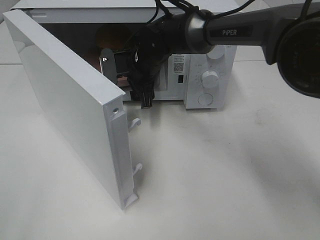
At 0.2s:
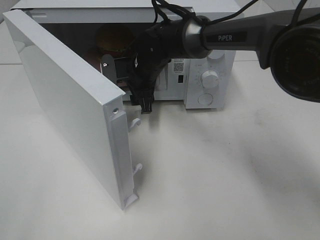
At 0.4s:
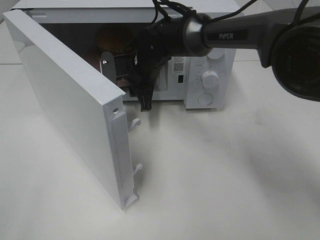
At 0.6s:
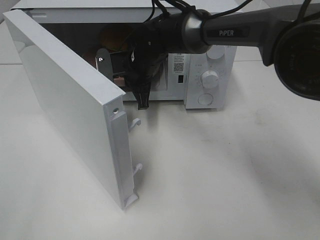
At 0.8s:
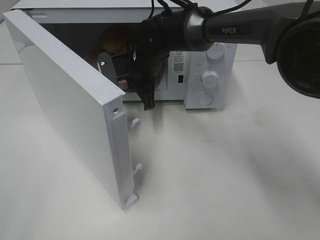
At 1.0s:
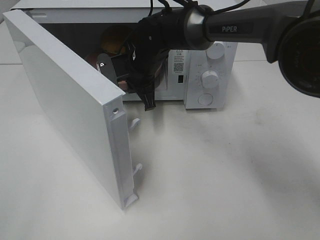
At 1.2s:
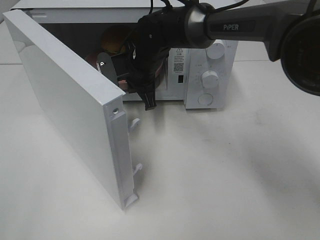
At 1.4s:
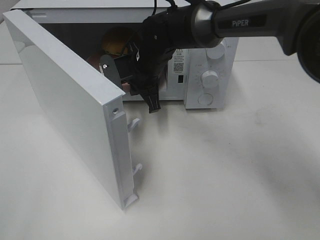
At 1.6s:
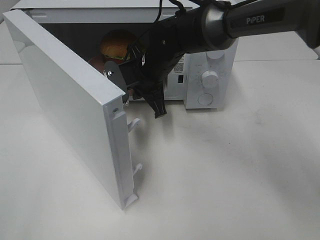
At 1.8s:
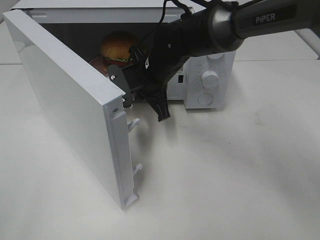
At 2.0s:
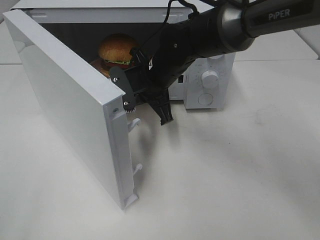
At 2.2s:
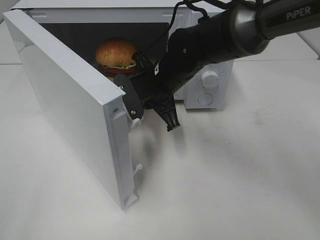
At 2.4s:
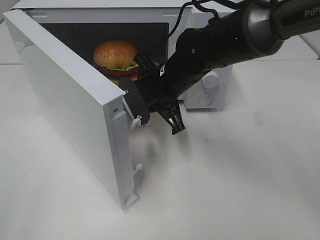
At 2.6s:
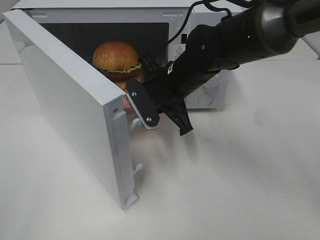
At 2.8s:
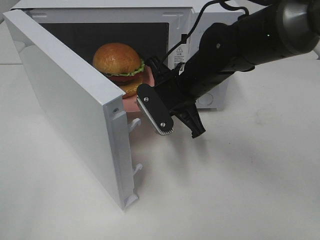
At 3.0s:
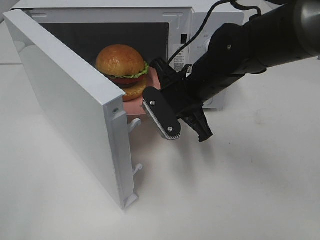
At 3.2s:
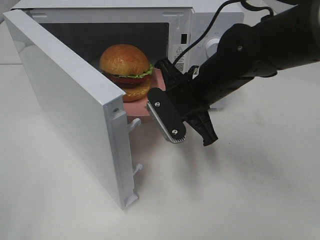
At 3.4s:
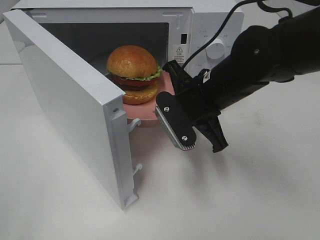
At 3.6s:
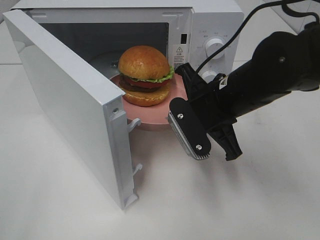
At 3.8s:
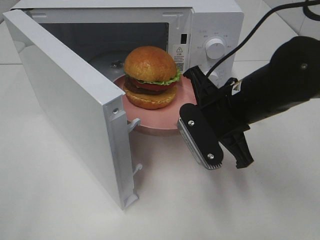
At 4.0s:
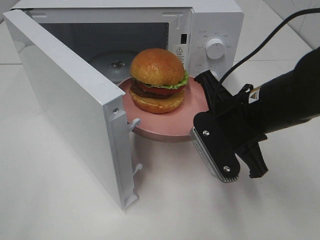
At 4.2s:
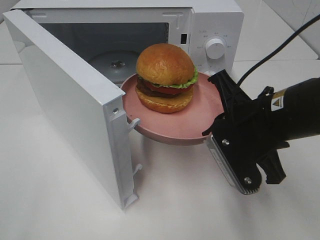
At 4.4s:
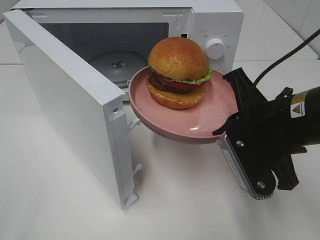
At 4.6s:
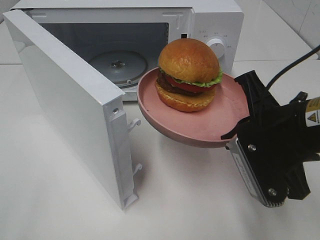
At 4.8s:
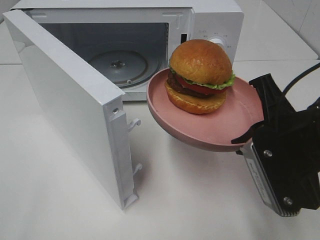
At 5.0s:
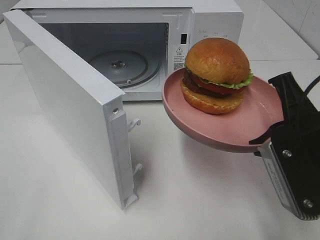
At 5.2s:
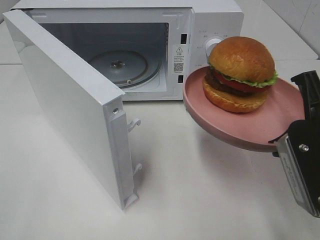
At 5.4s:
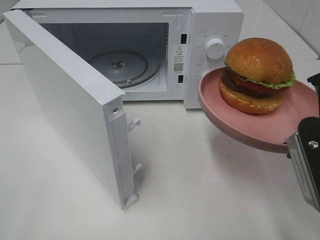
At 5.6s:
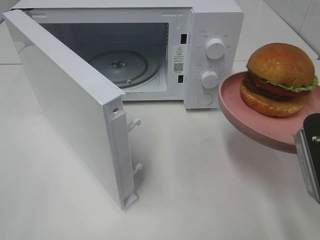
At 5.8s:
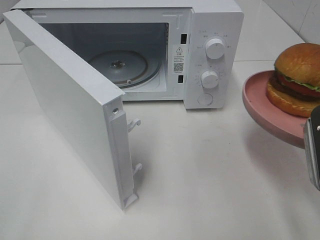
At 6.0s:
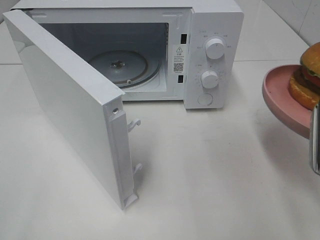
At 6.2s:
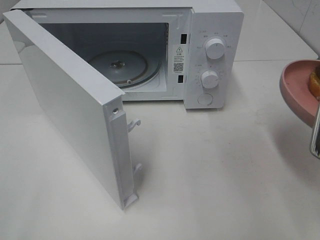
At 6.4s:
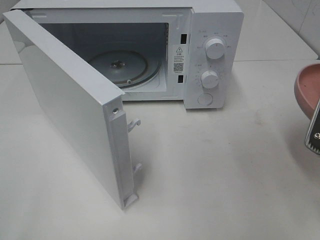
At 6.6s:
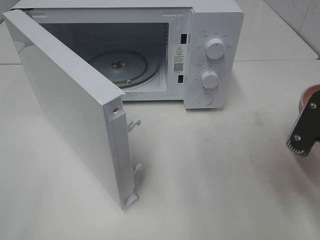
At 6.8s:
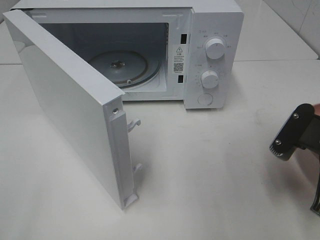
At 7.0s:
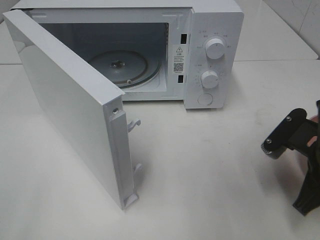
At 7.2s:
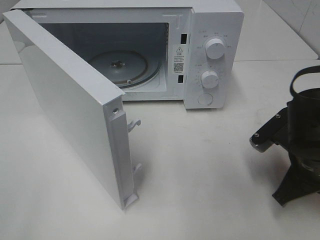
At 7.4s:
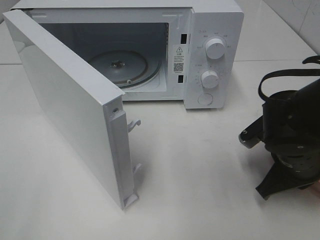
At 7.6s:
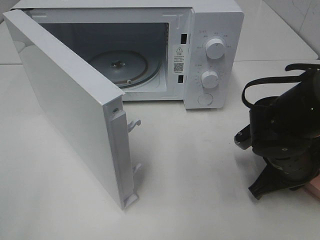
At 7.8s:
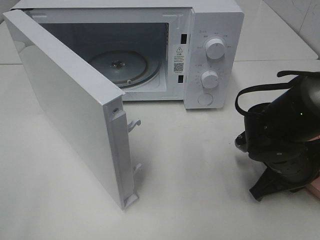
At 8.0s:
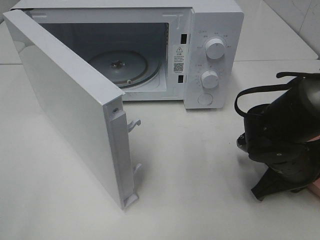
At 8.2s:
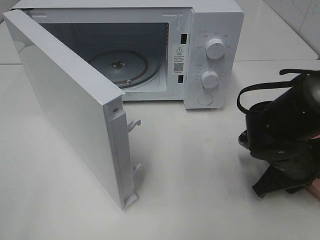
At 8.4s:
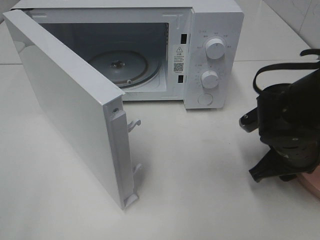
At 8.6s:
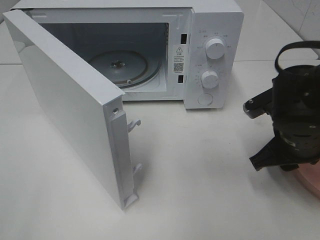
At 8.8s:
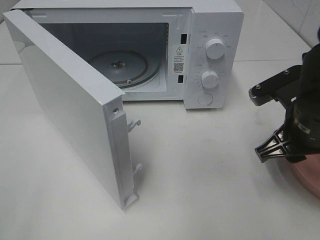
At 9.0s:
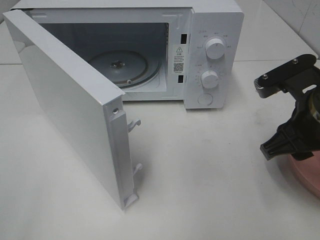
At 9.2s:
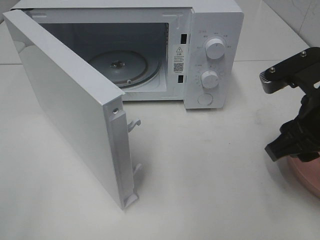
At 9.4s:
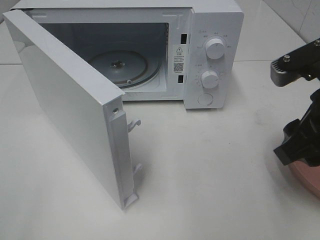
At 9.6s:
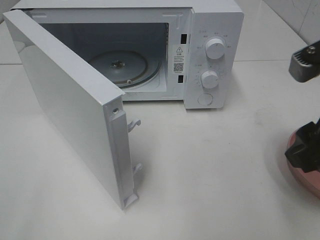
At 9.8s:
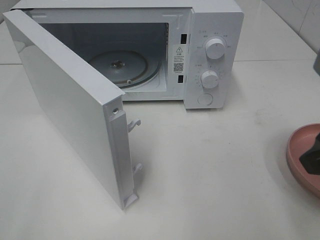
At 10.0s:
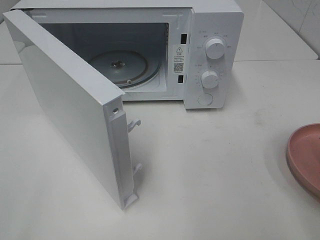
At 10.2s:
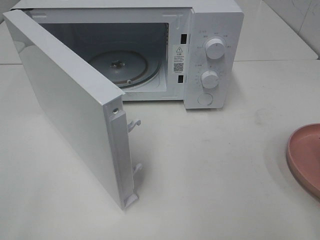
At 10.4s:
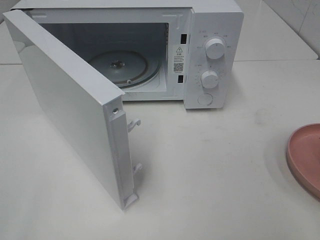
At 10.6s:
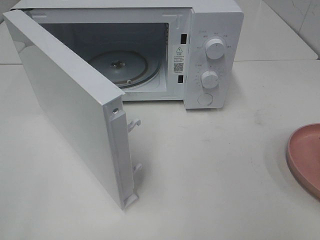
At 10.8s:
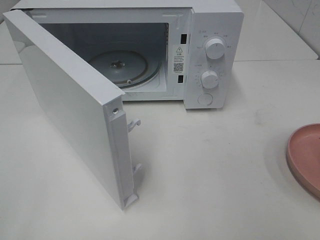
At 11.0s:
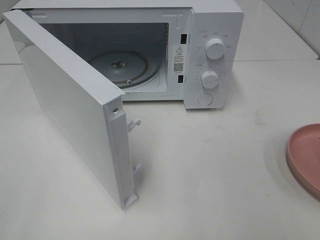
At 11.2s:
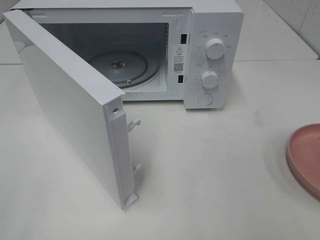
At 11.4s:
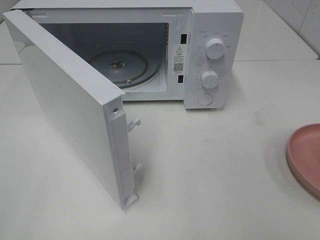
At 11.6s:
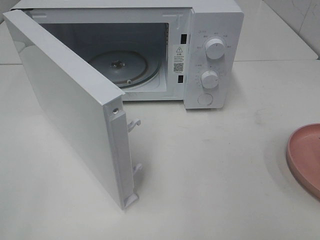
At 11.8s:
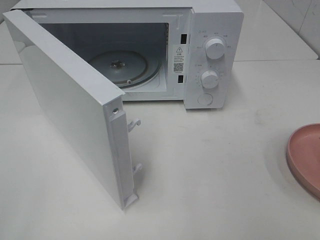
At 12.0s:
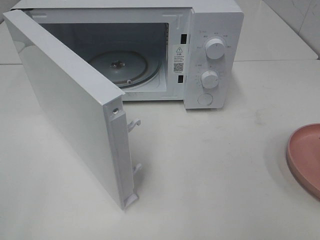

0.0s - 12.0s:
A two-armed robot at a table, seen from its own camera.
Task of the whole recording: Heat the burger.
Step, 0.8s - 8.2s: Right hand: place the plate on the table.
0.0s - 1.6s: The right gripper closes.
1.6s - 3.0s: The right gripper is displaced backward and to the right by about 10 cm.
3.0s - 4.4s: The right gripper is displaced backward and to the right by roughly 15 cm.
4.4s - 6.0s: The right gripper shifts approximately 10 cm to the right and backward.
6.0s - 7.6s: The right gripper heads downward and forward, covering some 15 cm.
7.6s - 9.0s: The right gripper heads upward, covering roughly 10 cm, and opens its fingers.
9.0s - 10.4s: The right gripper shifts approximately 15 cm backward, upward and to the right.

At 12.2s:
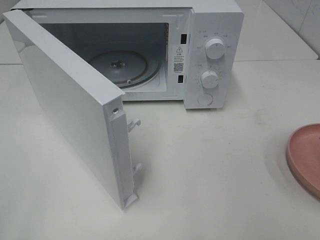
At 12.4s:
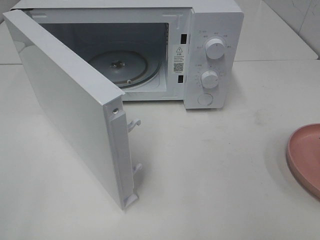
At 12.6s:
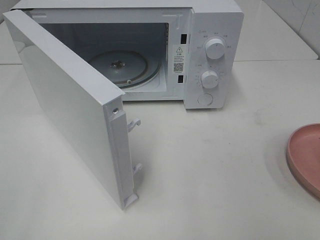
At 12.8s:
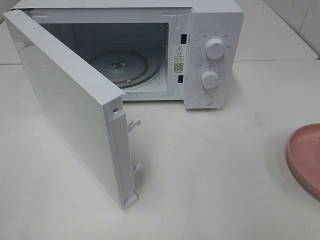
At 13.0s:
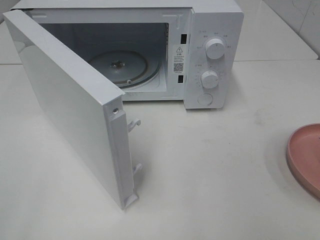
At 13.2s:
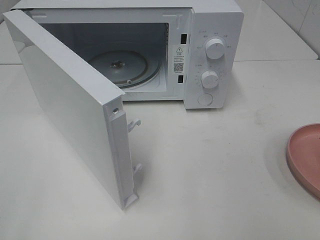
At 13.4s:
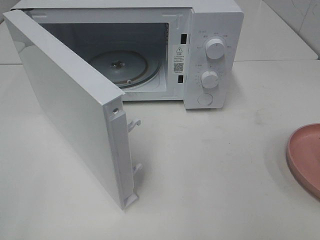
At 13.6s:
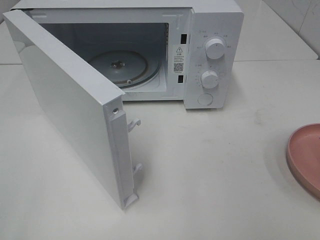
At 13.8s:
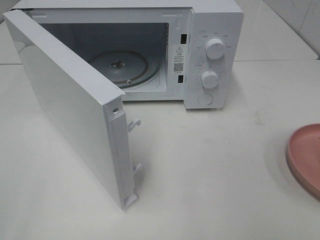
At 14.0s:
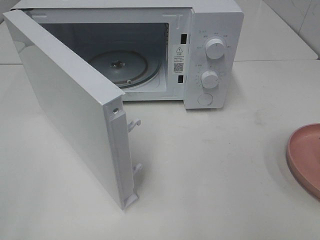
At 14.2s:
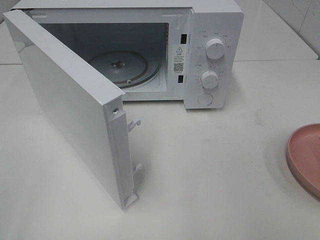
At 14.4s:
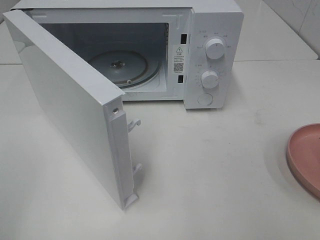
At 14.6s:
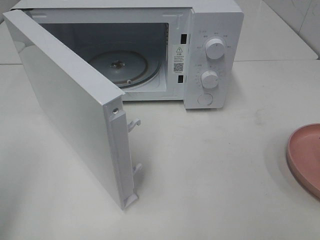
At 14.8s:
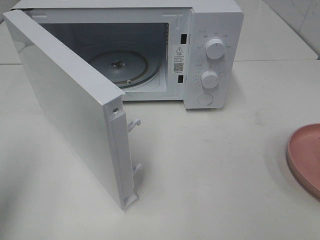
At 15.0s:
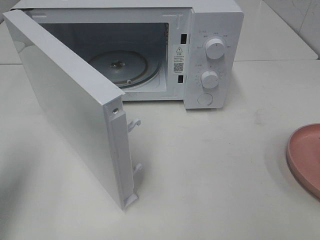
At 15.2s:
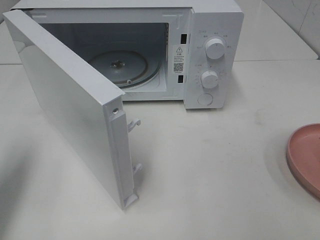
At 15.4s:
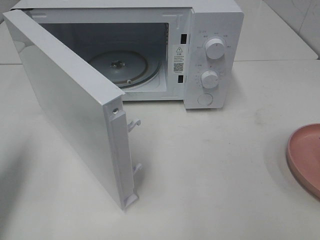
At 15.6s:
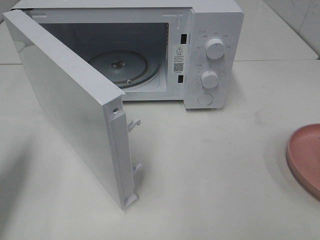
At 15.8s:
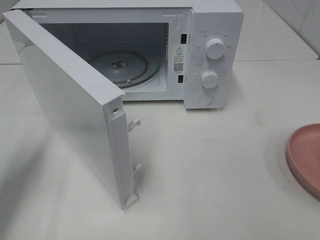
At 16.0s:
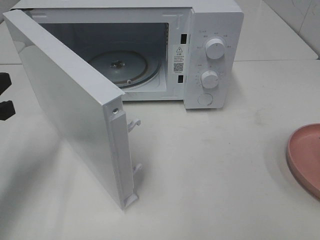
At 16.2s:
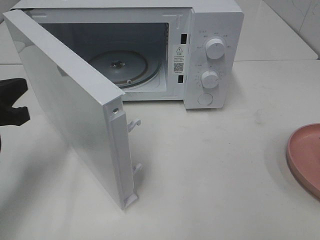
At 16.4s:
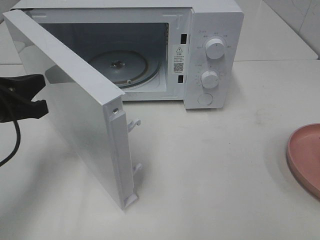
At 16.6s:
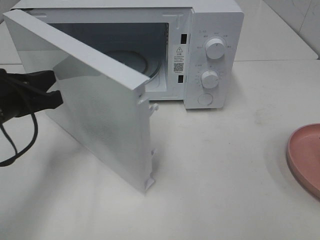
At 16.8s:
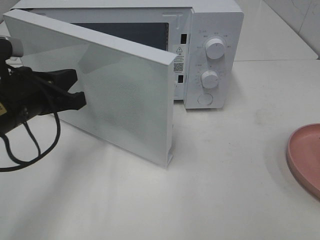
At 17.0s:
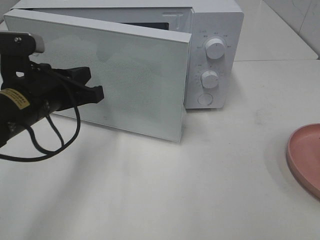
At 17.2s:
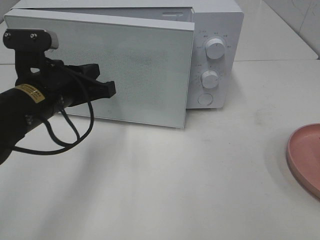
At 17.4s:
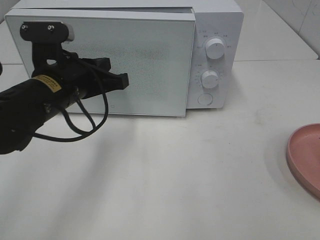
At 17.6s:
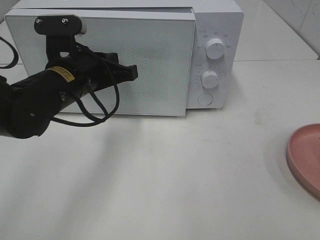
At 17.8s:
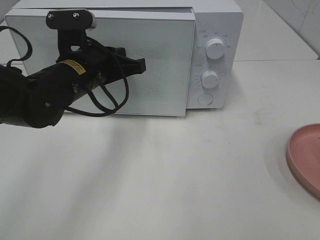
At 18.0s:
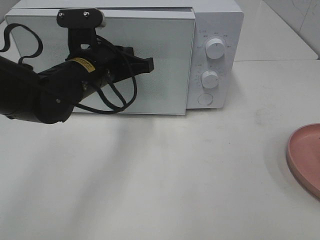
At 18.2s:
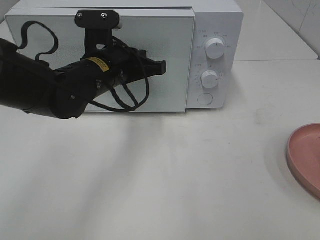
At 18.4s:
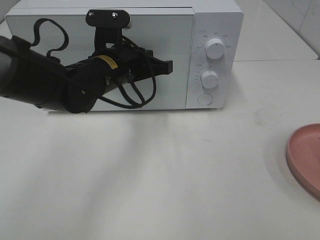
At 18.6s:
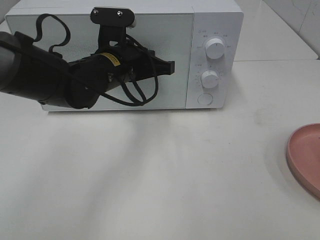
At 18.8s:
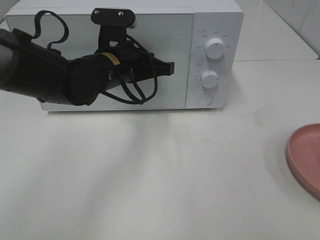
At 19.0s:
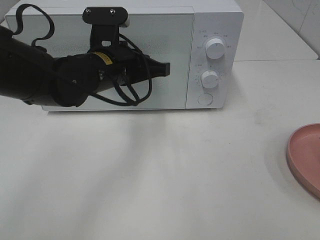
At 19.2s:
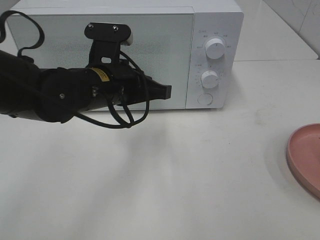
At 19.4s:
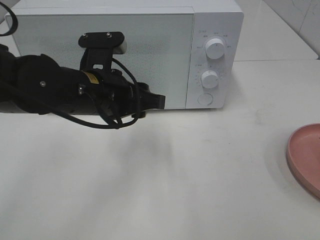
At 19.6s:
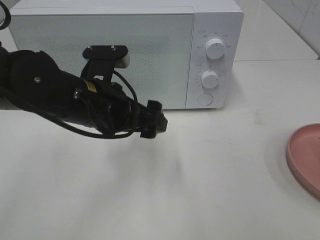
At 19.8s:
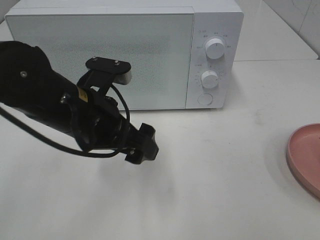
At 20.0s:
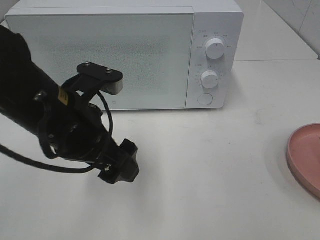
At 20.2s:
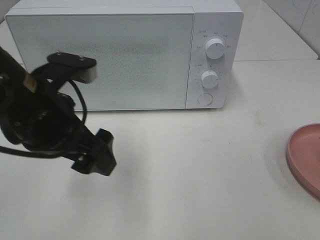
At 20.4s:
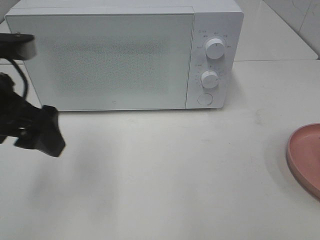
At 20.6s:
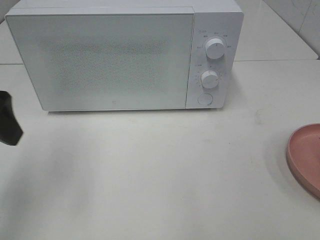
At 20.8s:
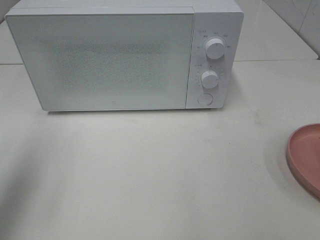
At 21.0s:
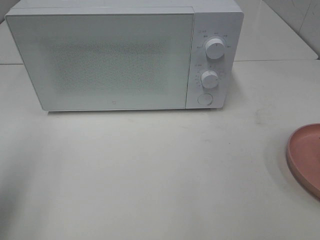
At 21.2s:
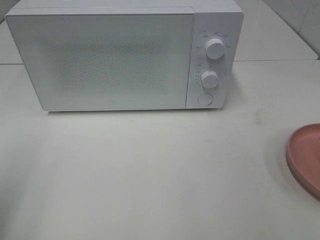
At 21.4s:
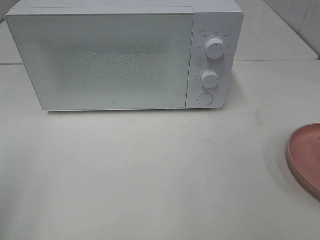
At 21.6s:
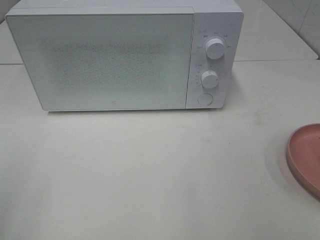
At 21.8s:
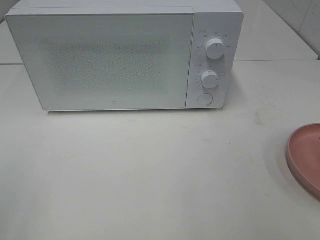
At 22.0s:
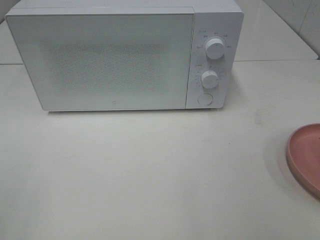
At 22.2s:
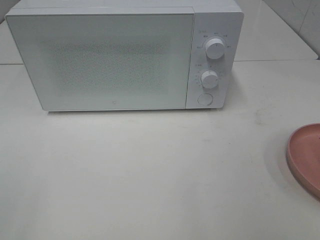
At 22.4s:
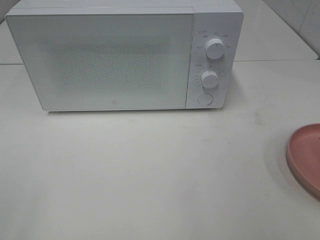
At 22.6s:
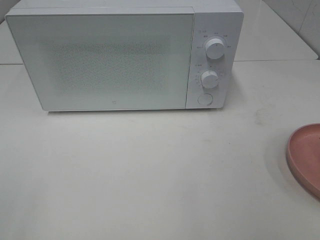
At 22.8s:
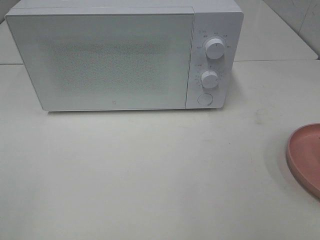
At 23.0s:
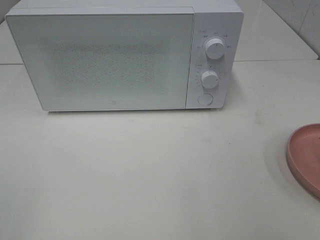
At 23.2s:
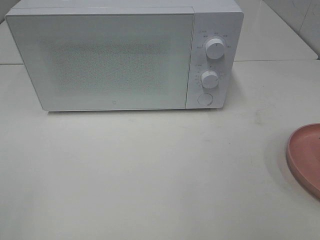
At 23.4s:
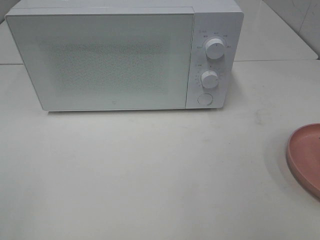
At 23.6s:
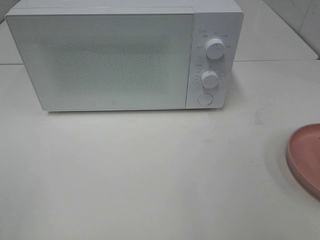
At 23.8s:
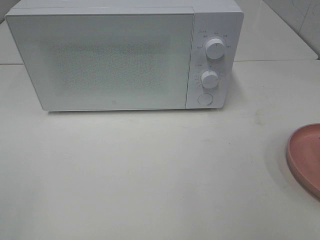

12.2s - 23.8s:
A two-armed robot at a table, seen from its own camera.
Task of the whole recording: Heat the burger.
Step, 12.2s - 19.0s: Left hand: close the microwave door.
12.2s - 13.6s: The two grippers keep their place.
13.6s - 15.0s: The left gripper heads forward, covering roughly 15 cm, and closes.
15.0s - 16.6s: The left gripper heads downward, to the right and forward, covering approximately 15 cm.
16.6s - 18.0s: The left gripper shifts approximately 15 cm to the right and forward.
18.0s - 19.4s: The left gripper moves backward, roughly 5 cm, and opens.
19.4s - 21.0s: The left gripper moves to the left, backward and upward, roughly 30 cm, and opens up.
21.0s - 22.4s: The left gripper travels backward by approximately 15 cm.
